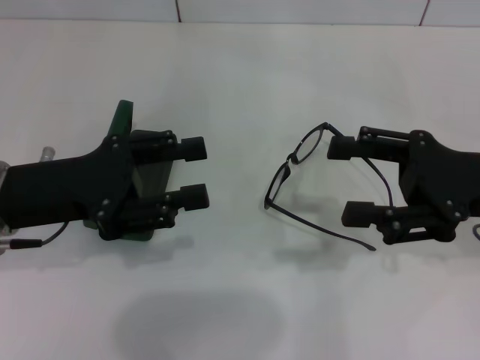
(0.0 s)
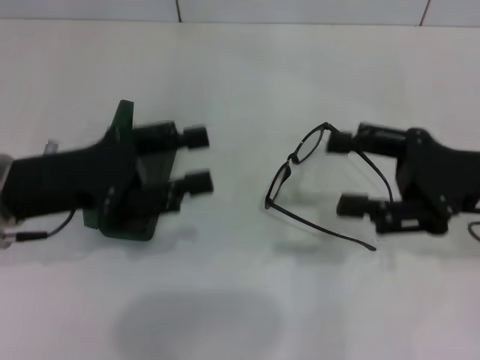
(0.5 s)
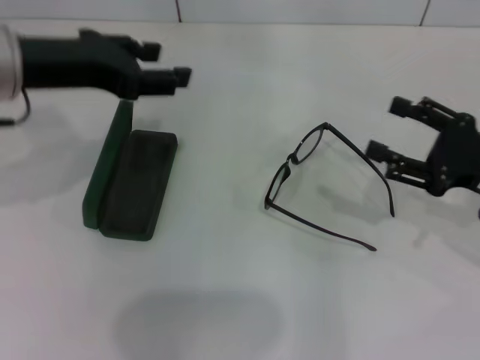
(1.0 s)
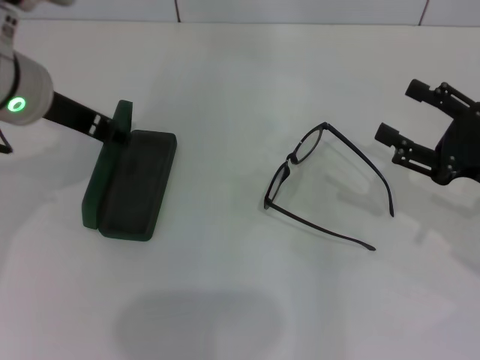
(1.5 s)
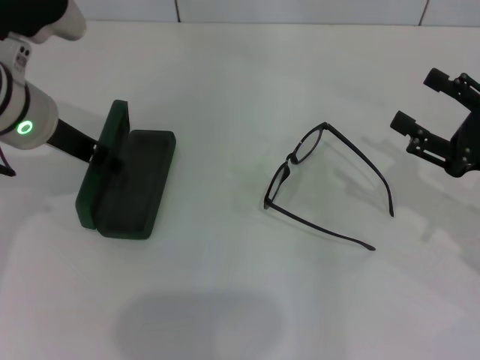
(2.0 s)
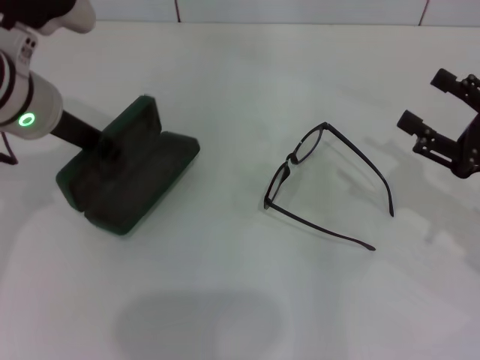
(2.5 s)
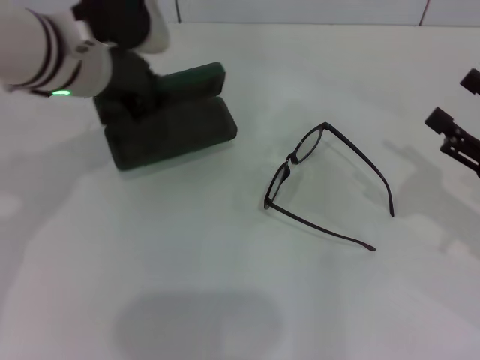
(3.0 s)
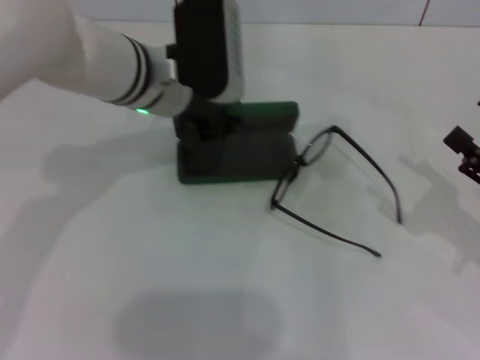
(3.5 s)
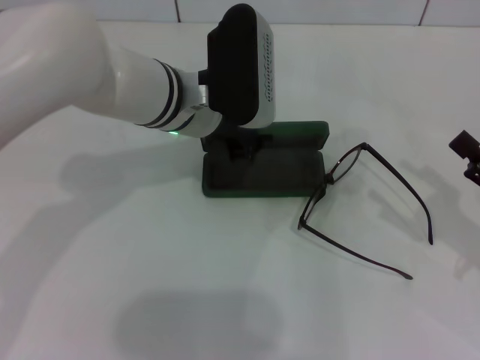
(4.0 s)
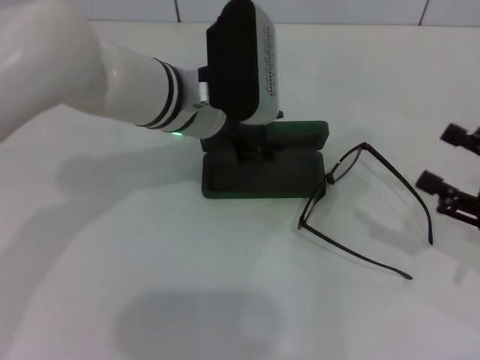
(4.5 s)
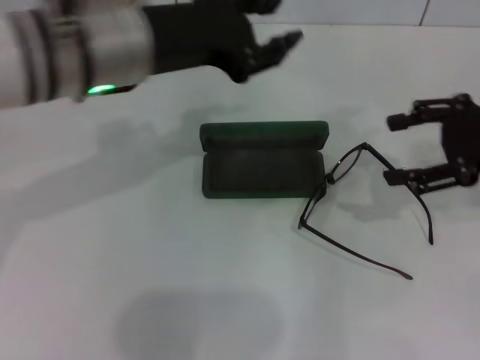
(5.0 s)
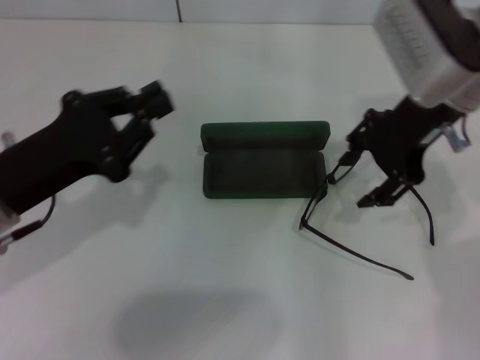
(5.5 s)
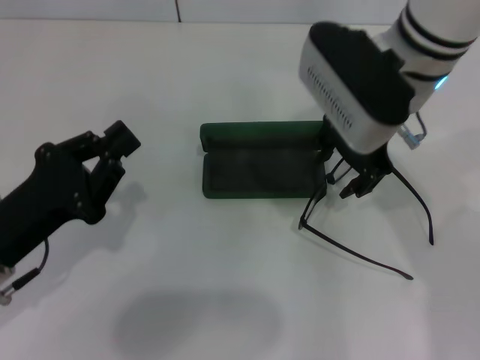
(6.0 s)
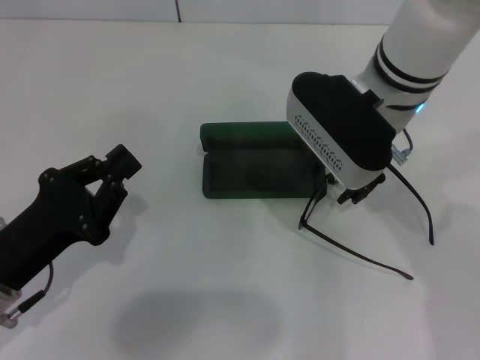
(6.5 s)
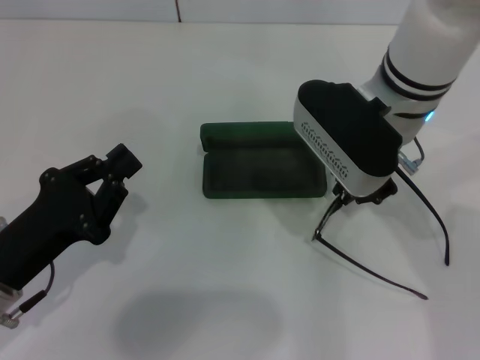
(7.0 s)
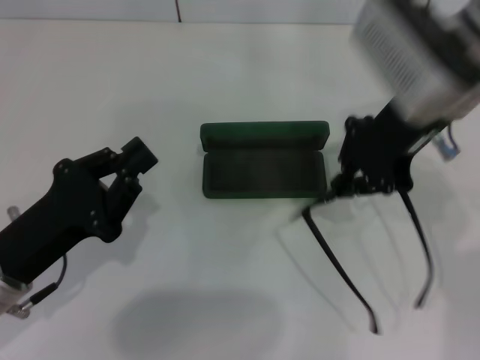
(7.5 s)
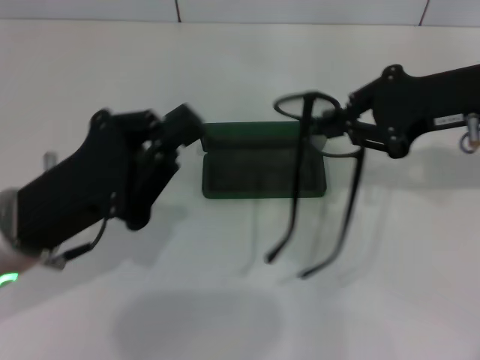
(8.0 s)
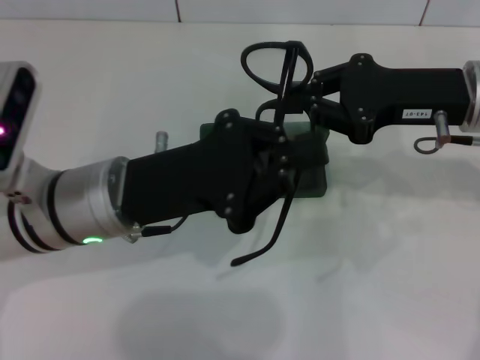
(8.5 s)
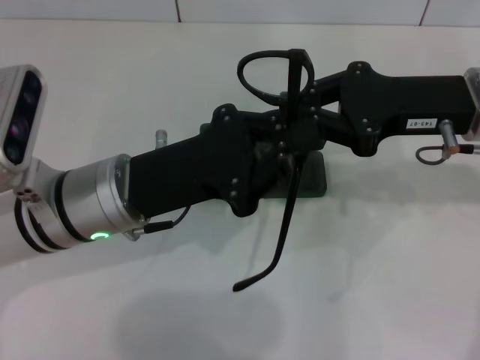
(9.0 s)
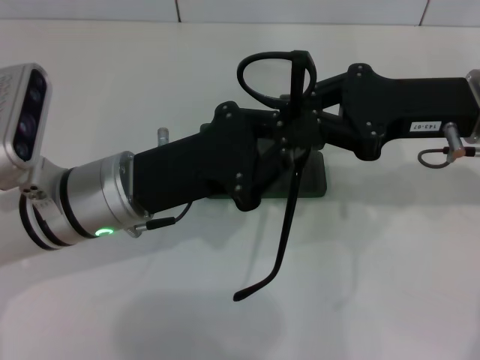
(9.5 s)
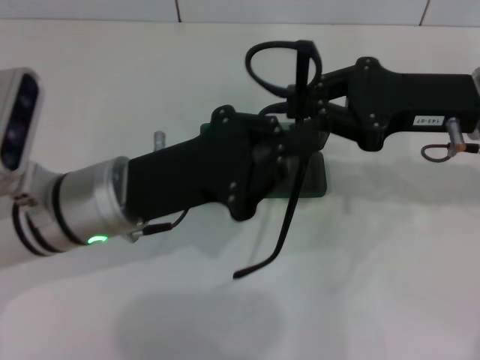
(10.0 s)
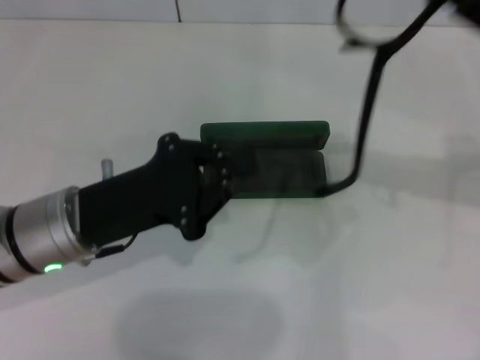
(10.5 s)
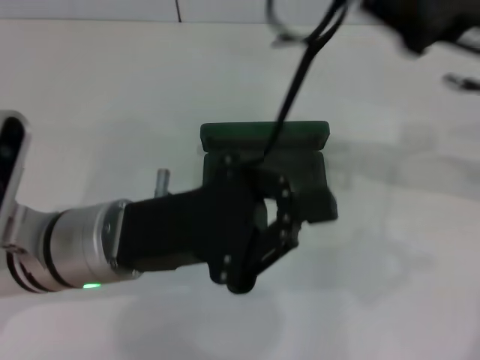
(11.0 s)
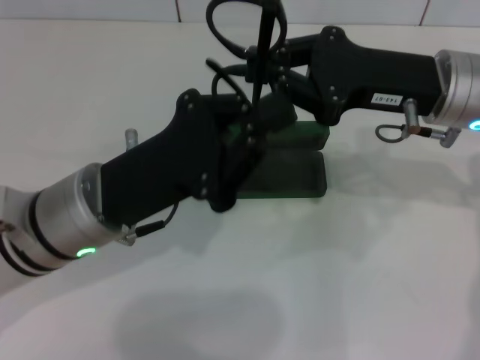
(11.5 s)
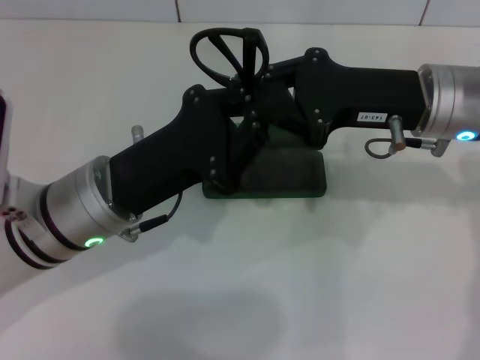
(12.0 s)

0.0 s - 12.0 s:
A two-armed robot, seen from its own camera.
Step, 0.0 s - 2.0 s: Grab the glasses case with your left hand.
Step, 2.5 s - 4.0 s: Place the glasses case in the center of the table with your left hand.
Step, 4.5 s - 6.5 s: Grab the eyeglass frame with your right hand.
Step, 7.5 s - 11.5 s: Fold the frame with your left hand.
0.0 s - 2.0 s: The left gripper goes some 10 cm forward. The right gripper heads downward, covering about 5 cm.
2.0 s - 4.0 s: The right gripper moves backward, about 5 cm; the left gripper shifts approximately 15 cm to the right, and closes.
4.0 s - 6.0 s: The right gripper heads to the left, forward and upward, covering about 30 cm. The left gripper heads to the left and backward, covering some 25 cm, and opens, then closes once more.
6.0 s - 8.0 s: The right gripper shifts approximately 15 cm to the right, and closes, while the left gripper is displaced to the right by some 5 cm.
8.0 s - 10.0 s: The left gripper is displaced to the right by approximately 5 cm.

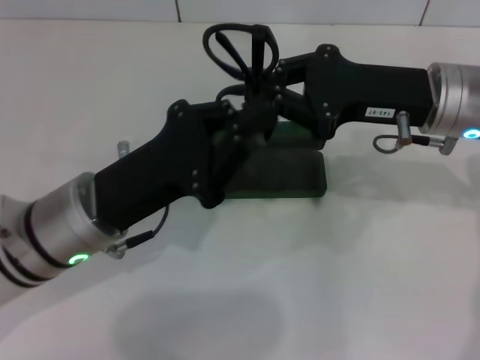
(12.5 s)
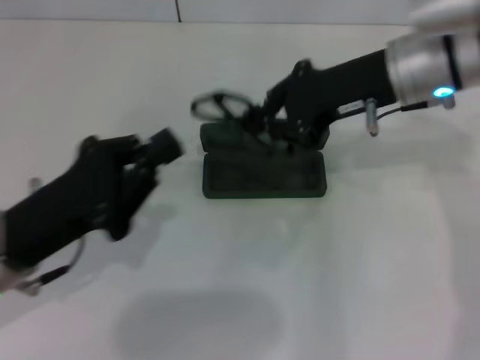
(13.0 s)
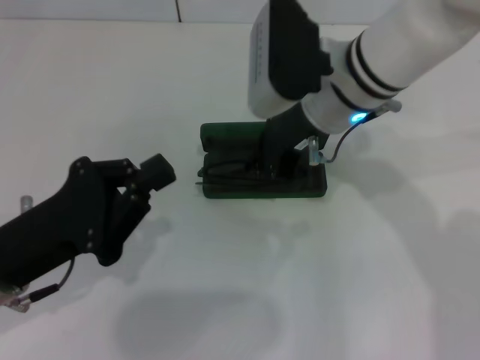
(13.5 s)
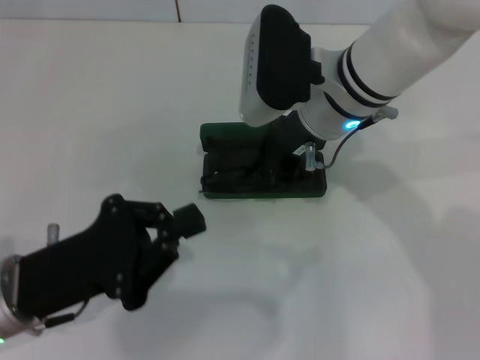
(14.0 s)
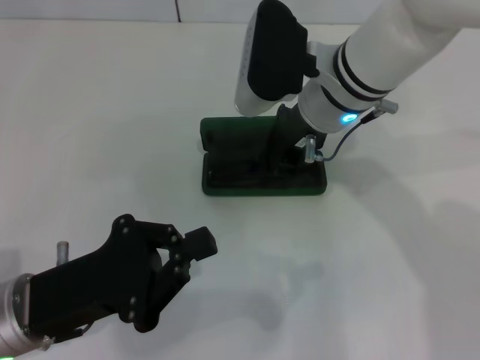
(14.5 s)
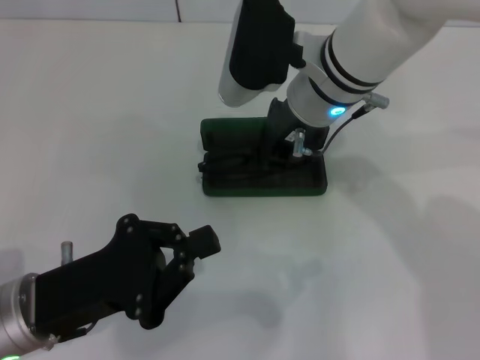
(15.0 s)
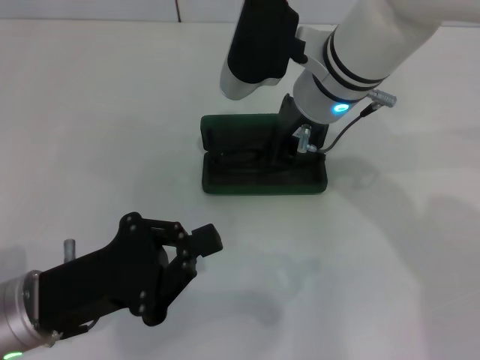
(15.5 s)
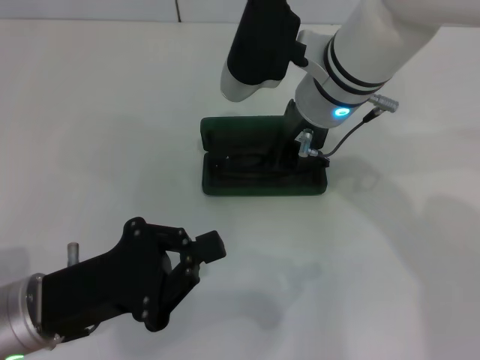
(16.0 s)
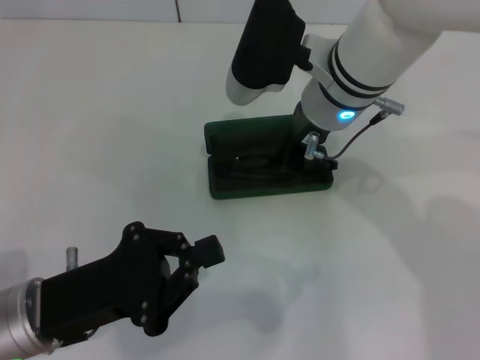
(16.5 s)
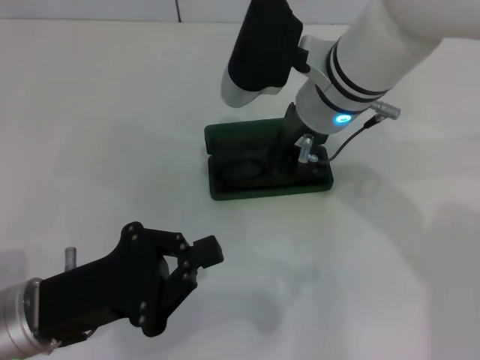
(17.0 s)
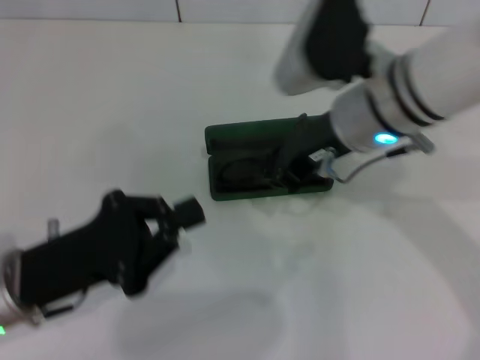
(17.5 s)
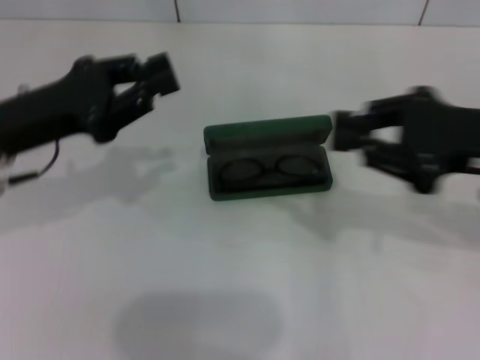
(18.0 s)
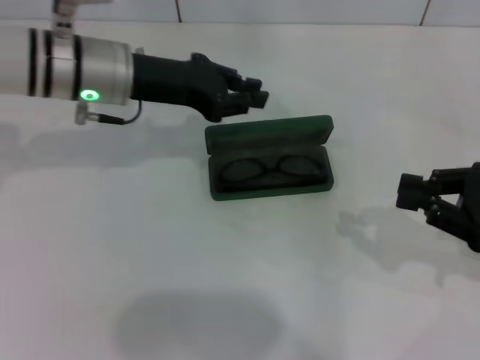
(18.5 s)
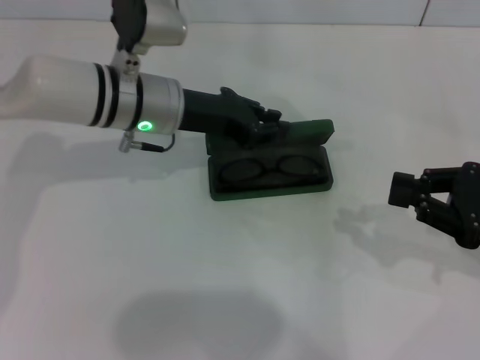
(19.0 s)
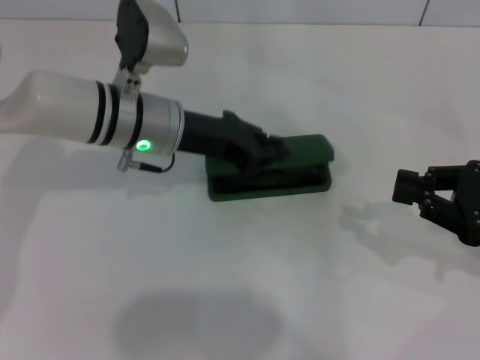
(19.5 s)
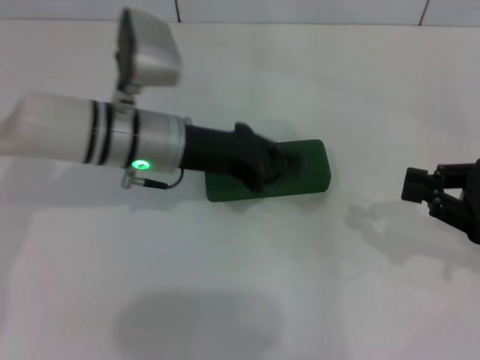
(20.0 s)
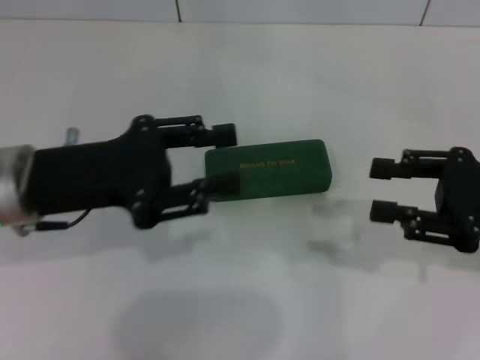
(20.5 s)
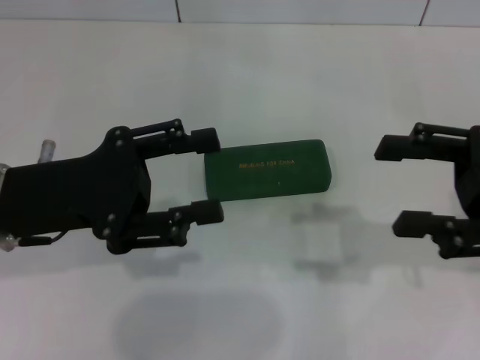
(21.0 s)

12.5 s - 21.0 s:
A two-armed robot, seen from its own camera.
Step, 12.5 s - 16.5 s: Put the glasses into the case with your right hand.
Step, 17.0 s - 19.5 s: Close the glasses case with your left hand.
12.5 s - 14.5 s: The left gripper travels backward and to the left by approximately 10 cm. The right gripper travels to the left by some 10 cm.
14.5 s - 16.5 s: The grippers stay close to where they were, moving slightly.
16.5 s - 19.0 s: The left gripper moves forward and to the right, some 25 cm. Meanwhile the right gripper moves to the right and backward, approximately 30 cm.
19.0 s - 21.0 s: The left gripper moves backward and to the left, about 20 cm, and opens, while the right gripper moves upward, about 5 cm, and opens.

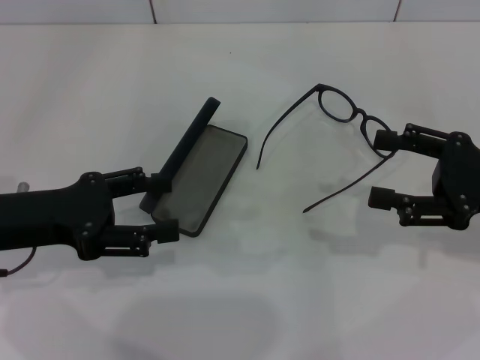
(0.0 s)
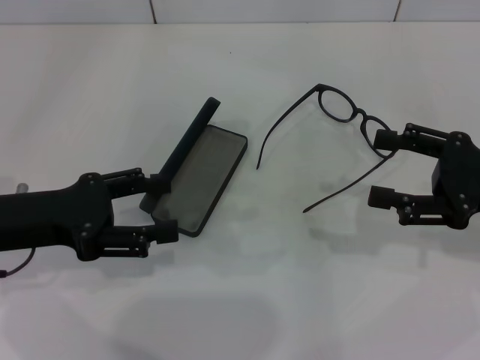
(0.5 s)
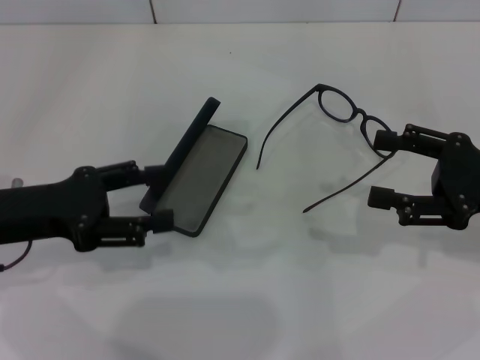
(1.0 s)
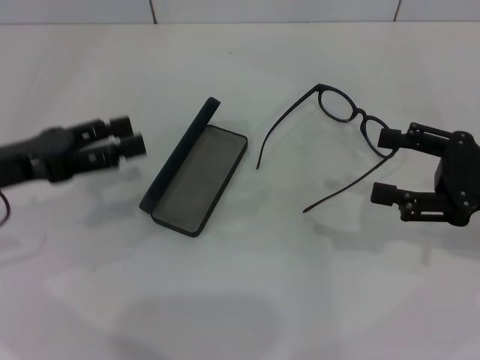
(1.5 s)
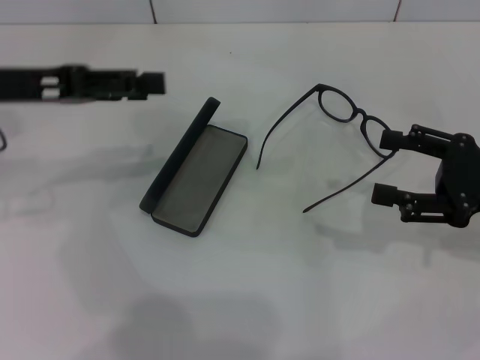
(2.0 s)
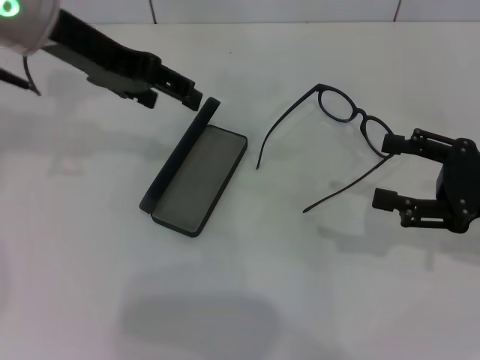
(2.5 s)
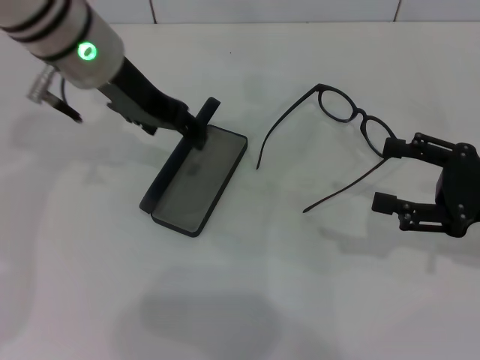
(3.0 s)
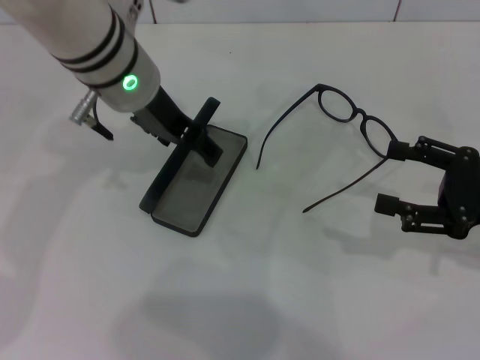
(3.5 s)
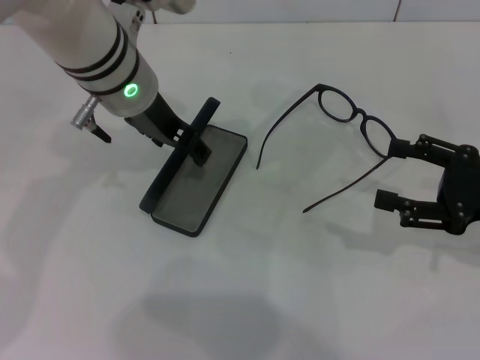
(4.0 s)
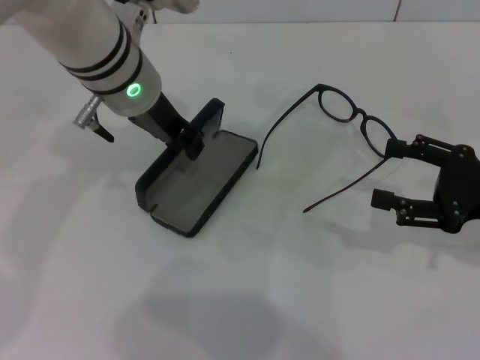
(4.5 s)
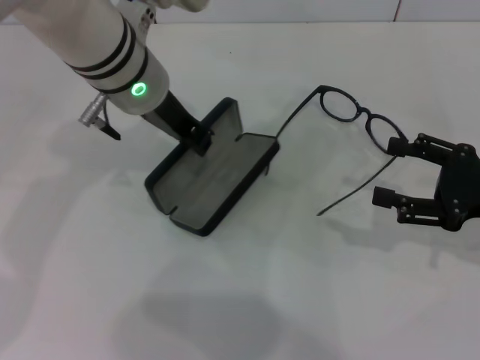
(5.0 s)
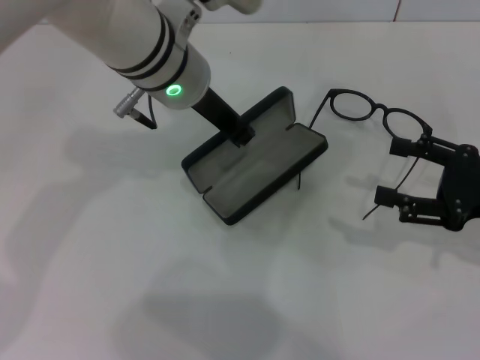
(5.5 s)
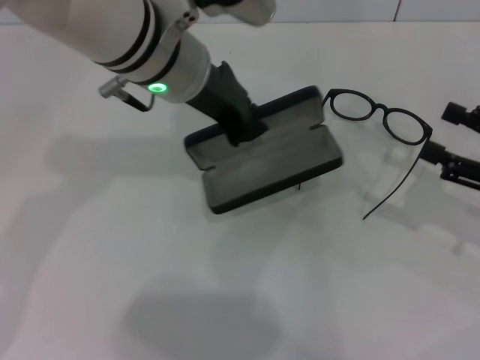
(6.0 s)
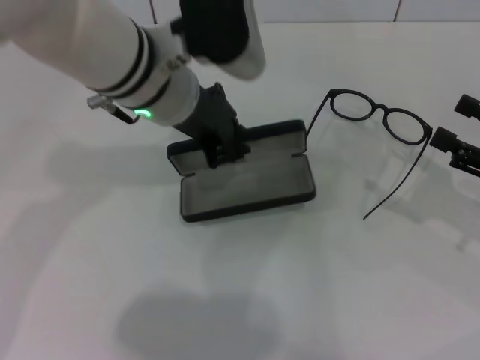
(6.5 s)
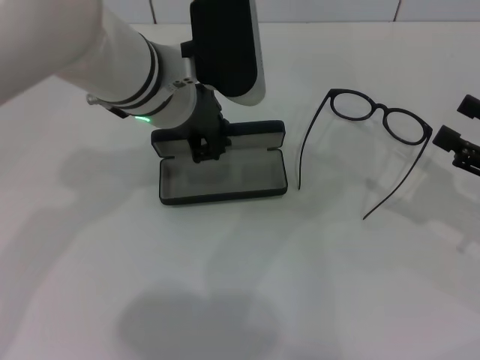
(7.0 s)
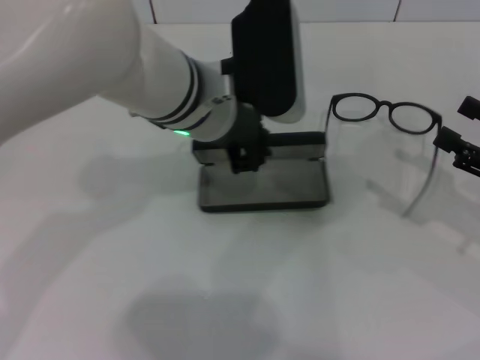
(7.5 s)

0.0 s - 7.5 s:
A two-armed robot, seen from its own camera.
Step, 0.0 s - 4.0 s: Grab the glasses case with your left hand.
0.0 s - 2.0 s: The left gripper moves upward and forward, about 10 cm.
2.0 s - 4.0 s: The left gripper travels to the right by approximately 15 cm.
4.0 s - 5.5 s: The left gripper closes.
